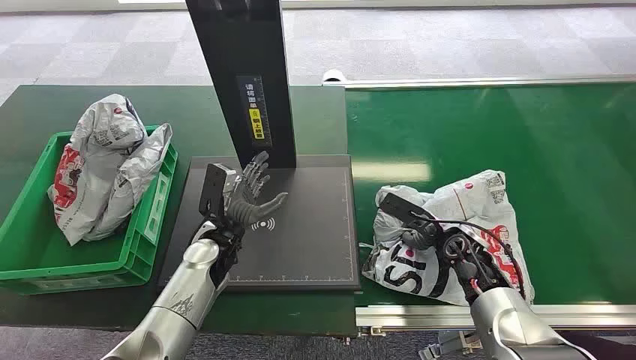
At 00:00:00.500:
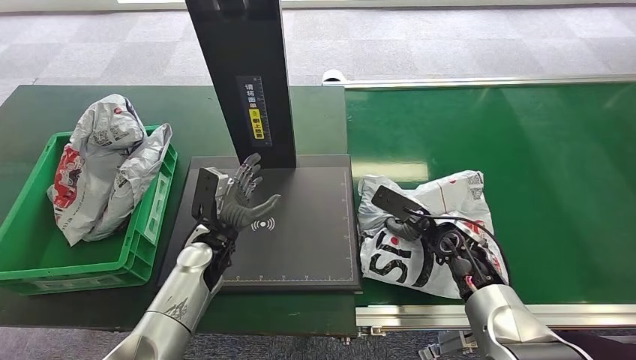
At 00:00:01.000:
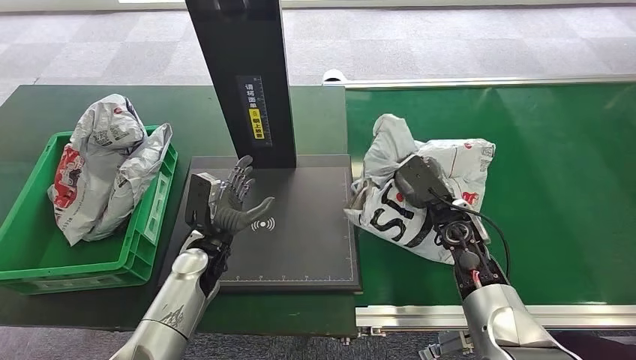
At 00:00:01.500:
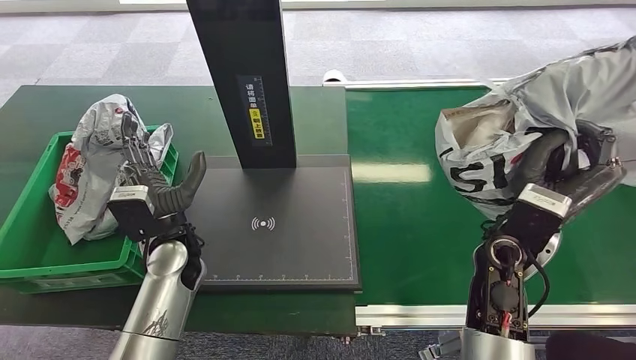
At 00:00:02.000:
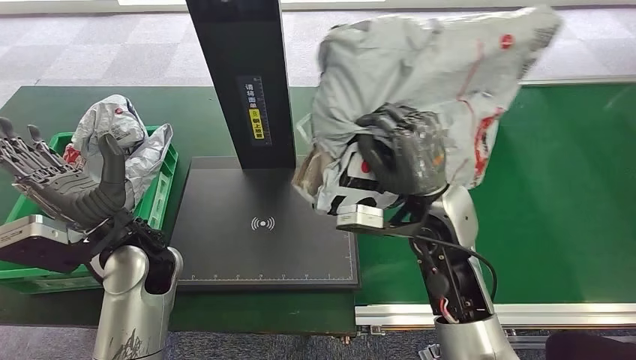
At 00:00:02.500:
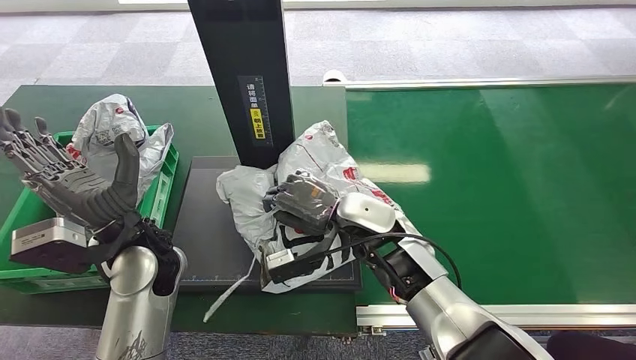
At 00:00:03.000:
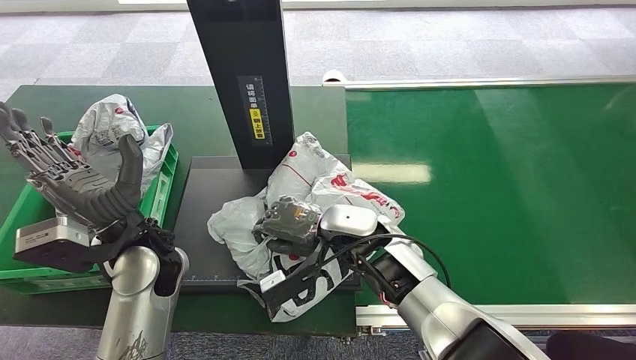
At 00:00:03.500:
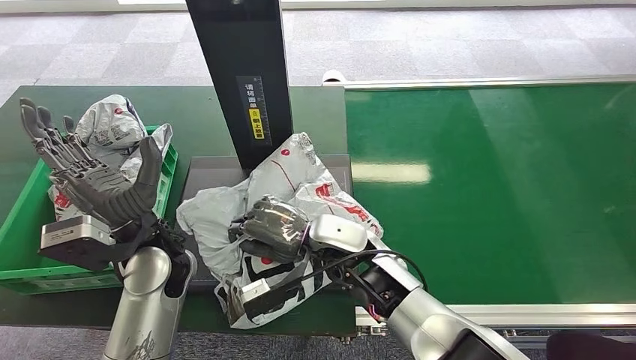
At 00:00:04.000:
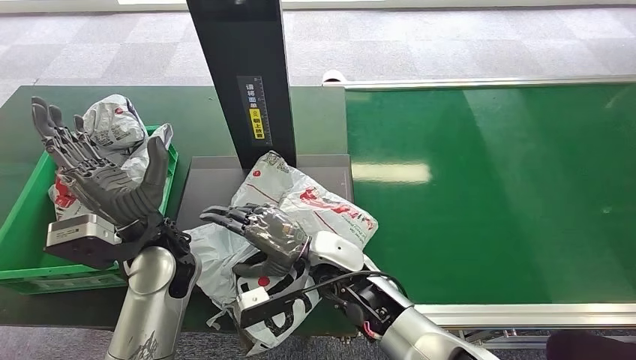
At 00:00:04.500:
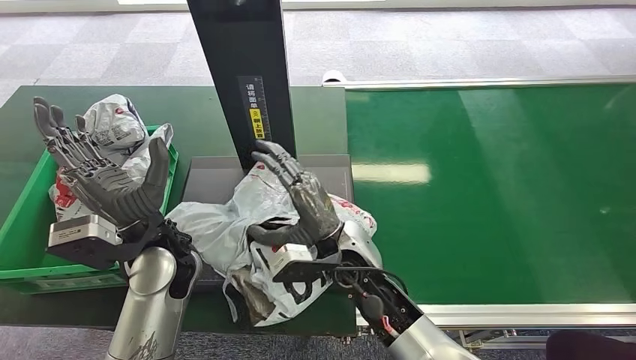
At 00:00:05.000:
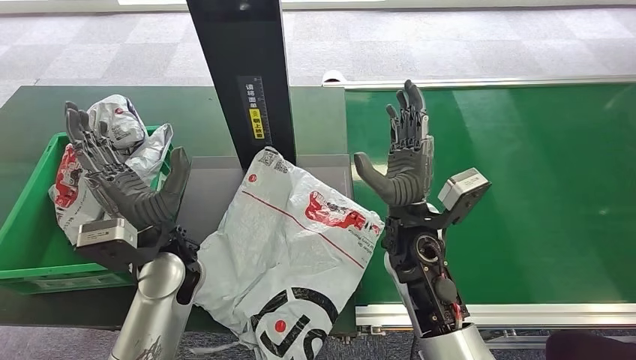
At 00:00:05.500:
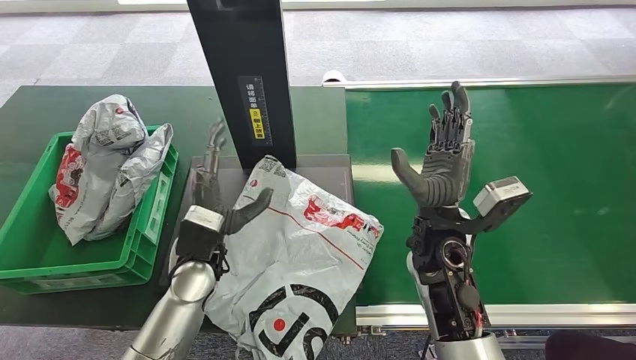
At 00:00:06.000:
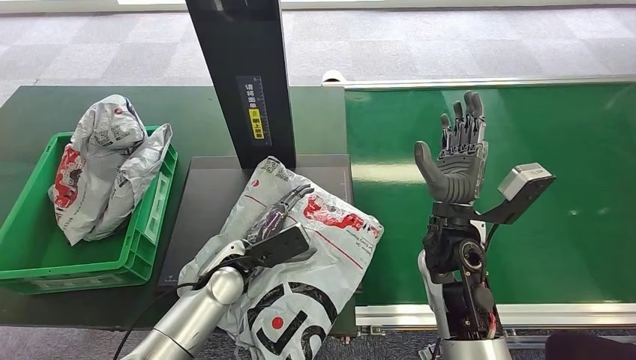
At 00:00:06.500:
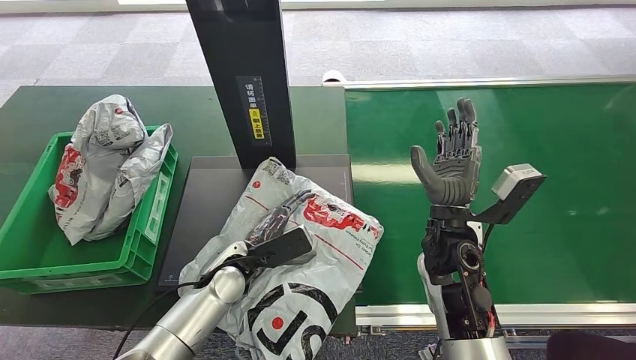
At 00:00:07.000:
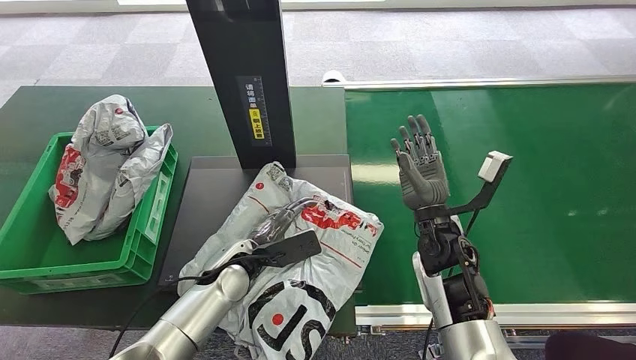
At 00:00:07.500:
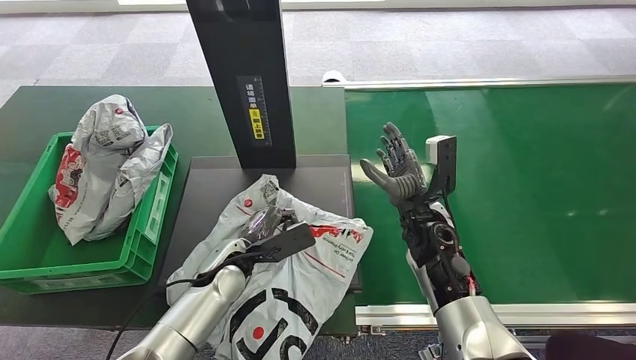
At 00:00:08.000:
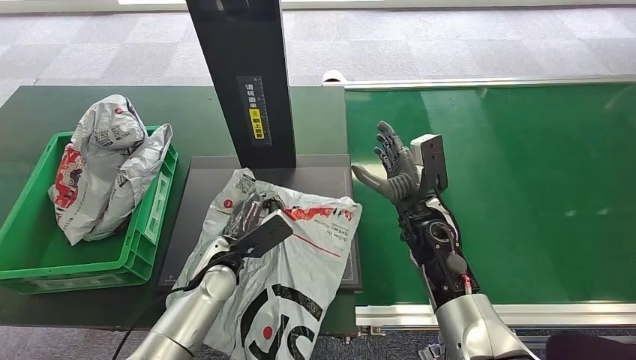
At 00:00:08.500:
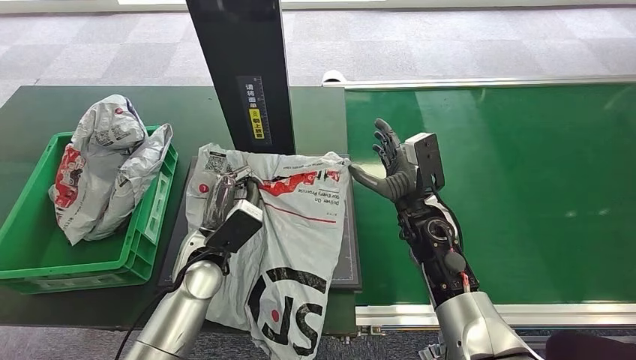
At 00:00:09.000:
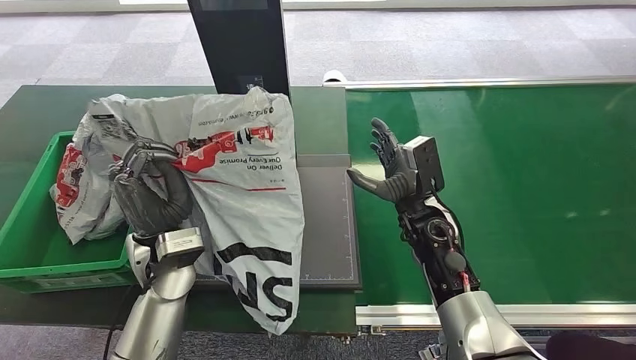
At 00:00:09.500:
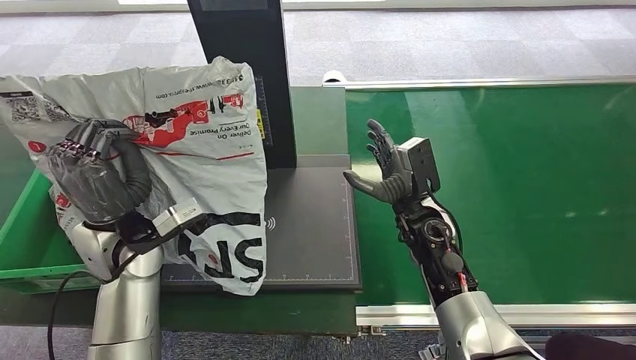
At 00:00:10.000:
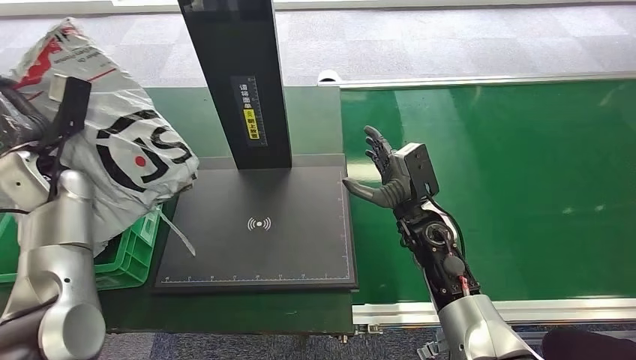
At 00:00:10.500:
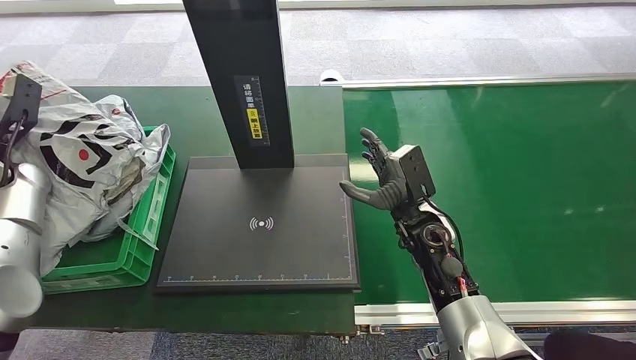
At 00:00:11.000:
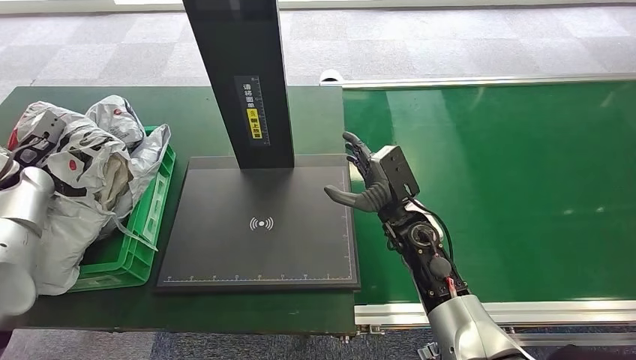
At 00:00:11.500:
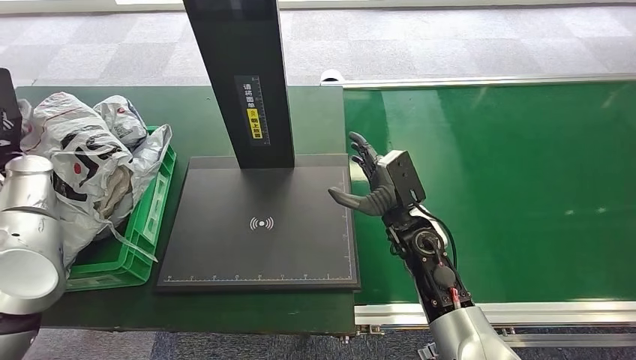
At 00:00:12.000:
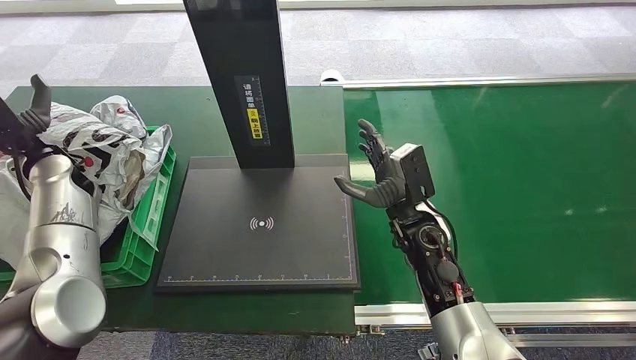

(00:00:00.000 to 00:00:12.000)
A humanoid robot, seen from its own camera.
Step, 00:00:00.000 - 00:00:01.500: Pick up the package from the conveyor belt.
Step, 00:00:02.000 - 00:00:06.000: Place the package onto the inbound machine.
Step, 00:00:06.500 - 00:00:09.000: Pick up the package from the inbound machine.
Step, 00:00:09.500 - 00:00:12.000: Place the package into the parcel locker.
00:00:06.000 - 00:00:08.000: The right hand changes place by about 5 cm.
